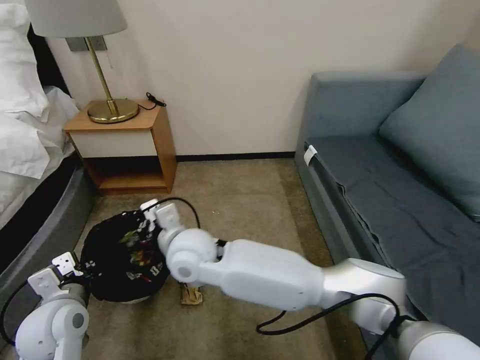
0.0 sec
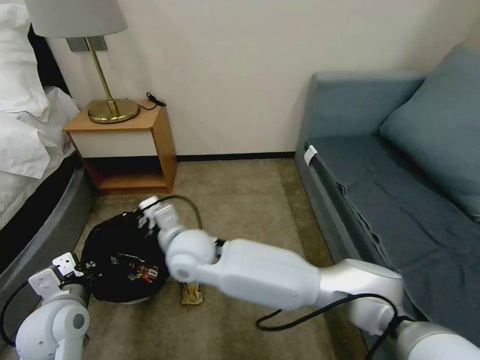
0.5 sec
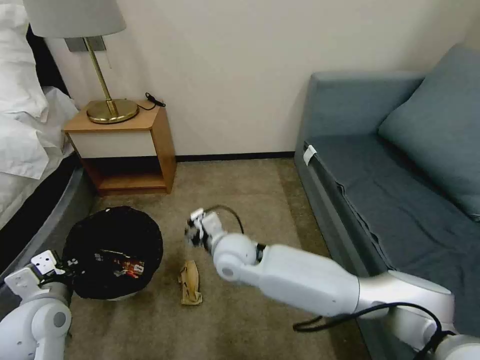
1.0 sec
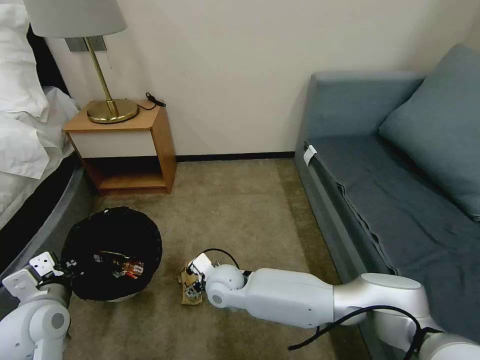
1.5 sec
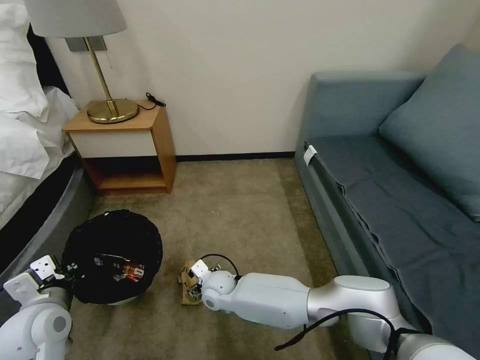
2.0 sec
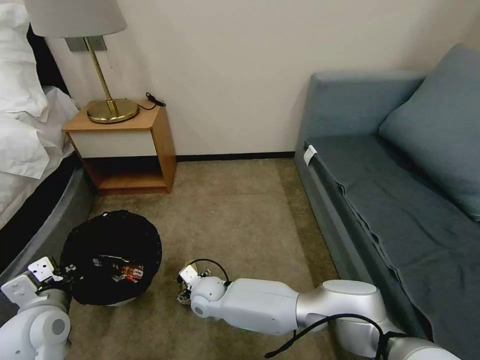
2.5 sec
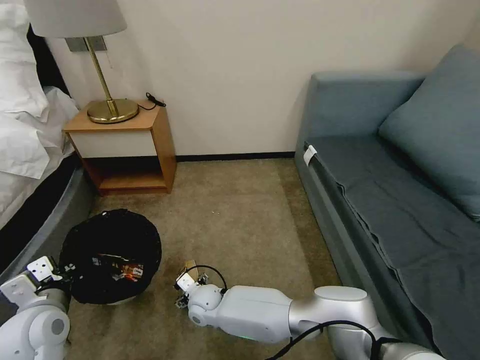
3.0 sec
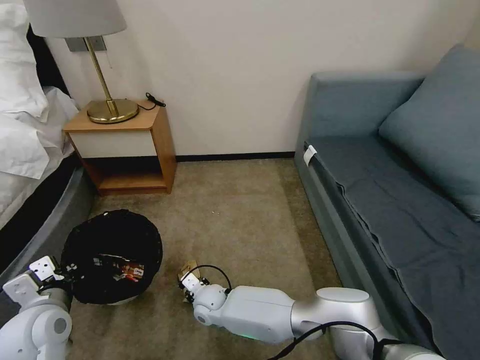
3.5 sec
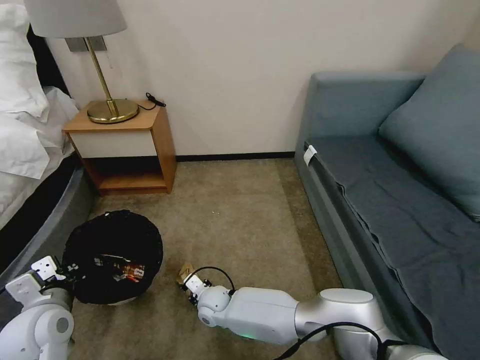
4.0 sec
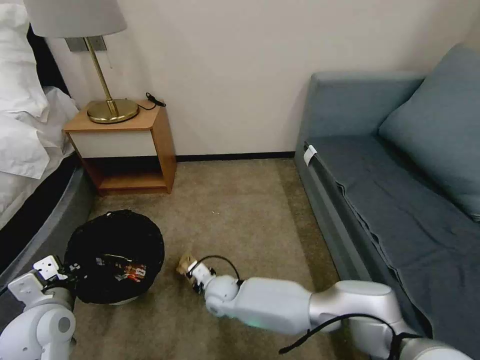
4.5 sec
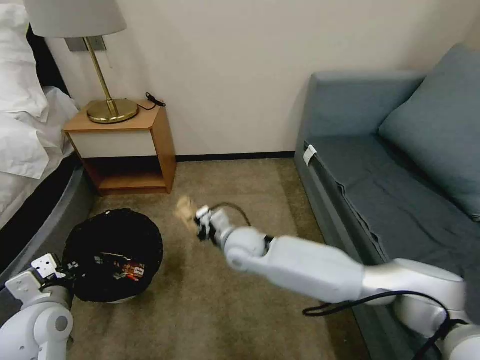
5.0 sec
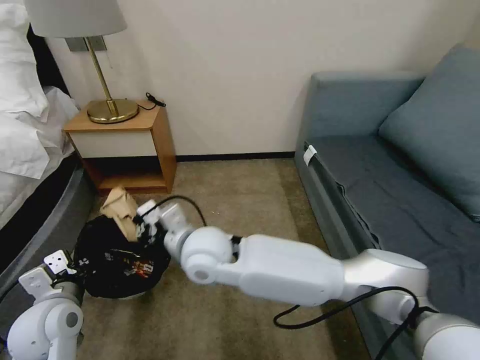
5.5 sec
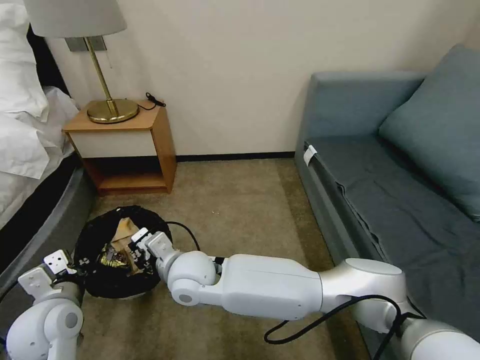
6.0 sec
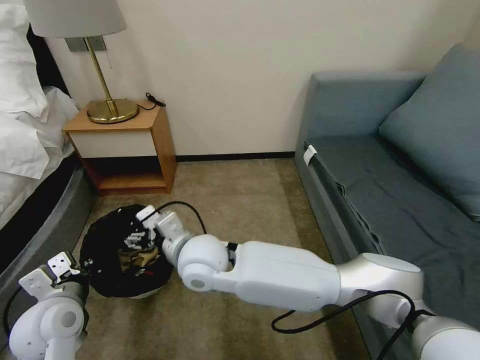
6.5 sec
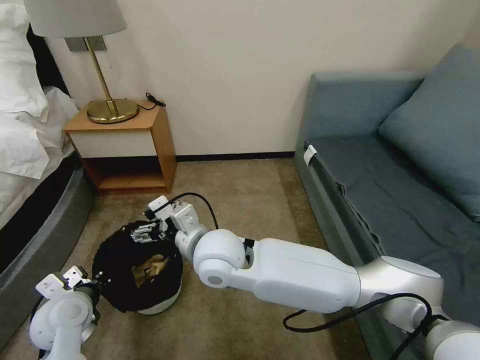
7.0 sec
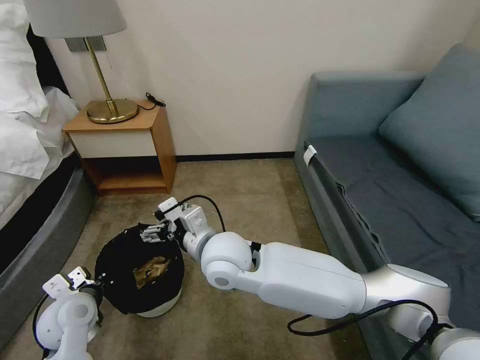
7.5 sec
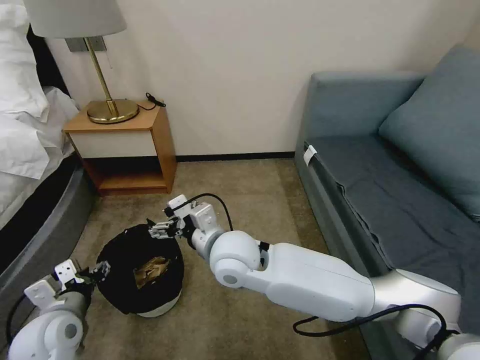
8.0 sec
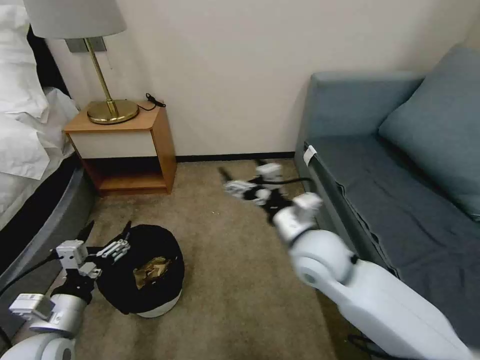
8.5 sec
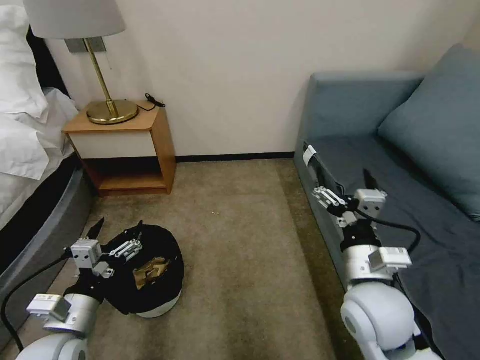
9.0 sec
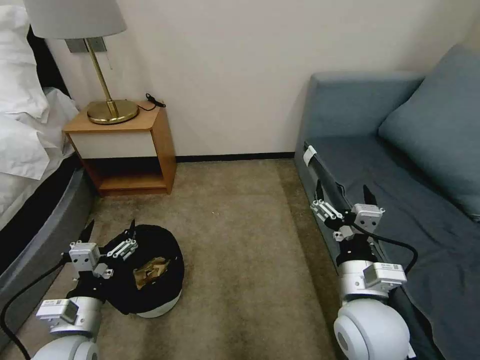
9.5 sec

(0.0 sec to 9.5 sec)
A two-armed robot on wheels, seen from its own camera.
Task of the whole recording: Pick up the trash bin, then pick up the garbage on the floor and place it into the trash bin.
0.0 sec - 2.0 sec: The right gripper shifts approximately 25 cm downward, and opens.
2.0 sec - 4.0 sec: The right gripper ends up roughly 5 cm from where it was, and closes its fingers.
4.0 sec - 5.5 sec: The right gripper is displaced upward by some 30 cm.
5.5 sec - 7.5 sec: The left gripper is displaced downward by roughly 5 cm. Meanwhile the right gripper goes downward and returns, about 10 cm each way, and opens up.
7.5 sec - 9.5 sec: The left gripper is displaced backward and to the right by about 10 cm, and opens up. Meanwhile the right gripper goes roughly 25 cm to the right and backward.

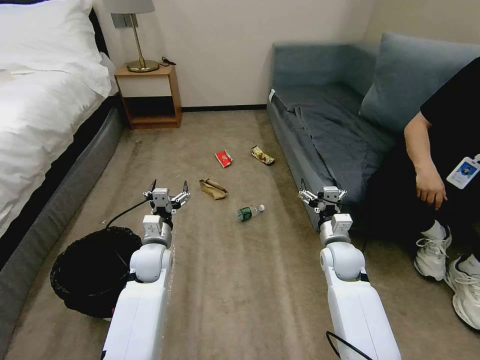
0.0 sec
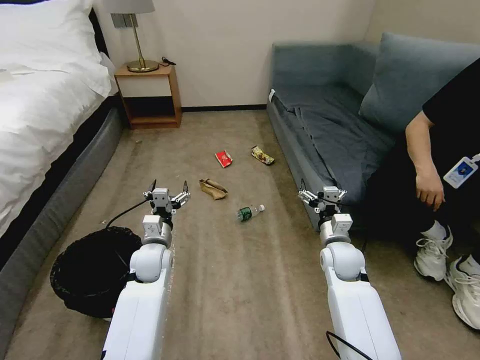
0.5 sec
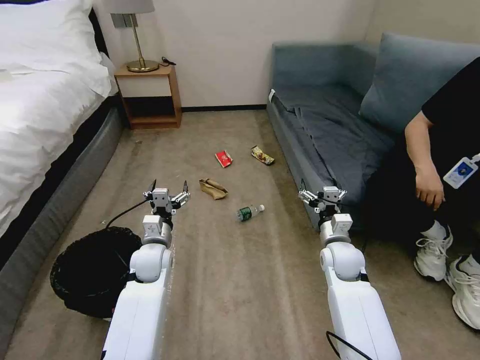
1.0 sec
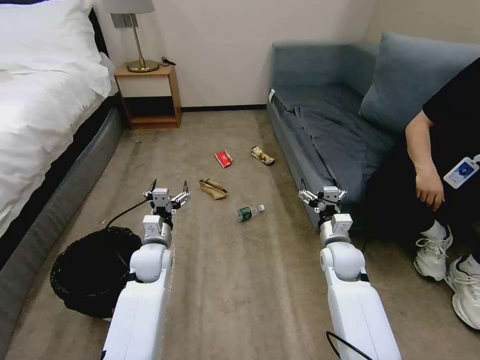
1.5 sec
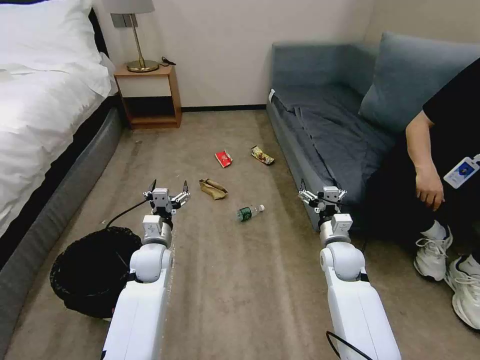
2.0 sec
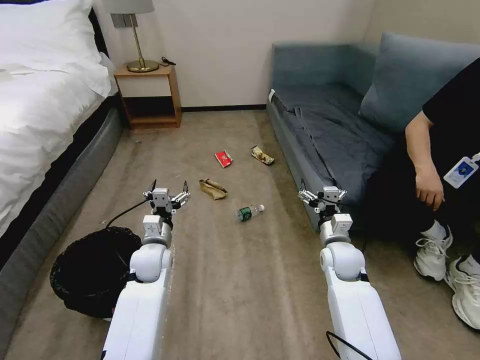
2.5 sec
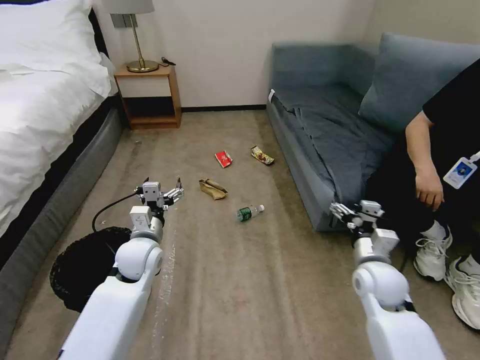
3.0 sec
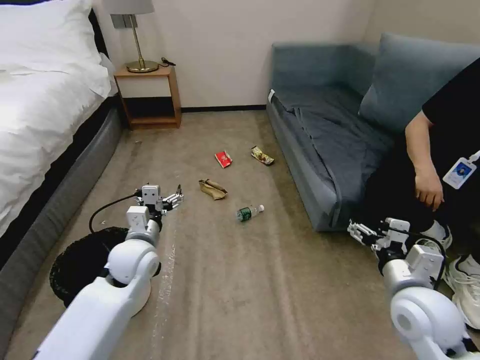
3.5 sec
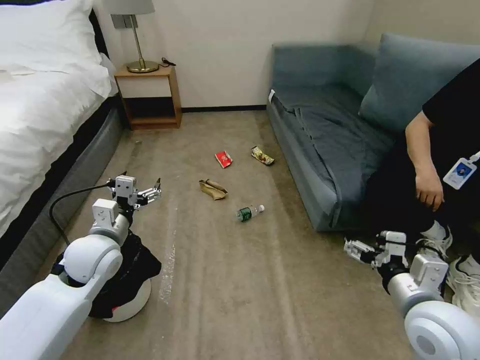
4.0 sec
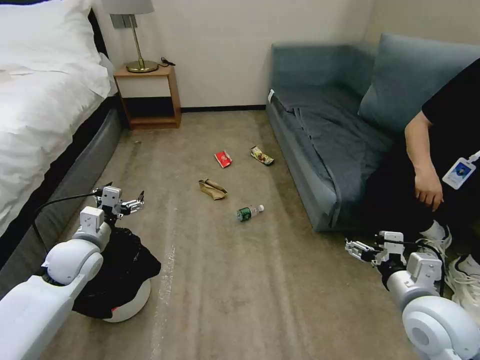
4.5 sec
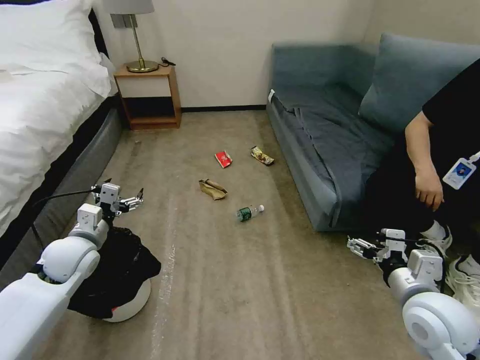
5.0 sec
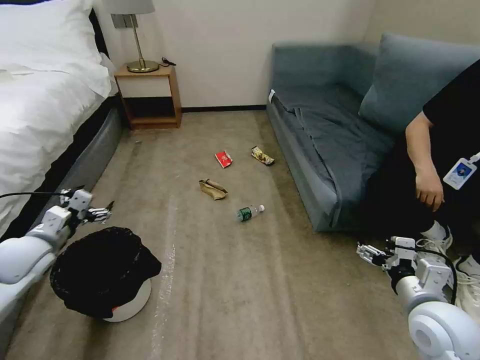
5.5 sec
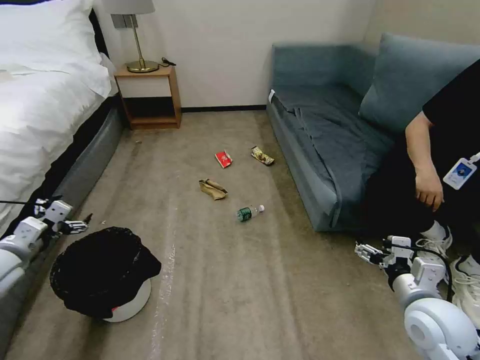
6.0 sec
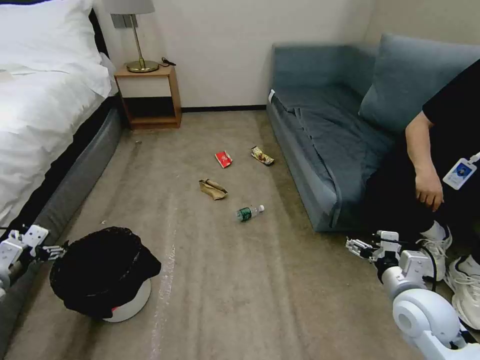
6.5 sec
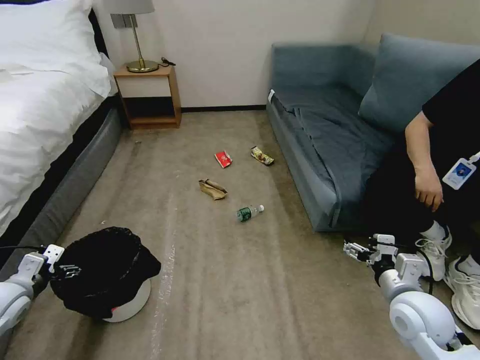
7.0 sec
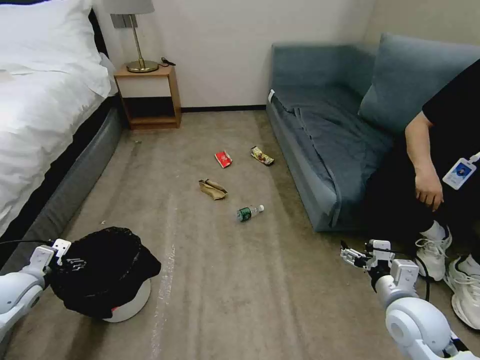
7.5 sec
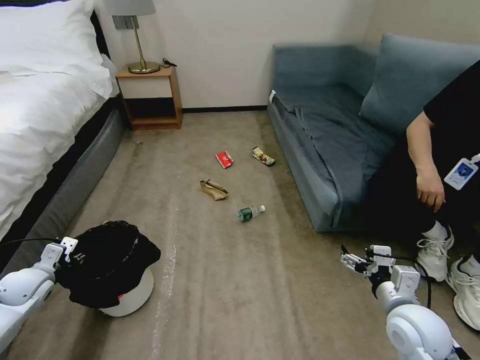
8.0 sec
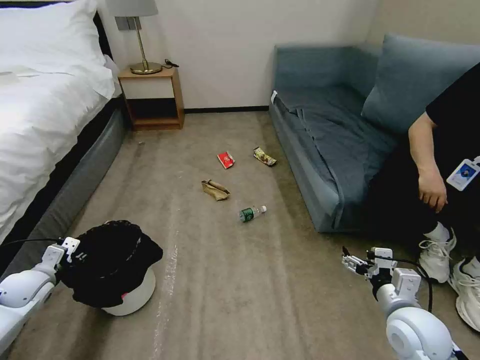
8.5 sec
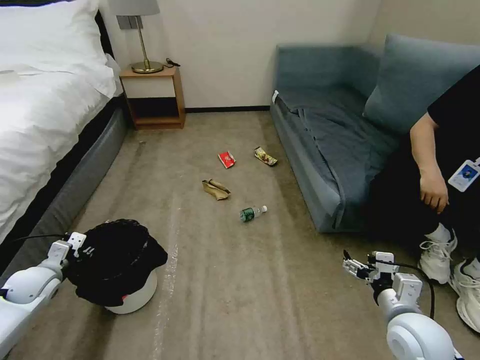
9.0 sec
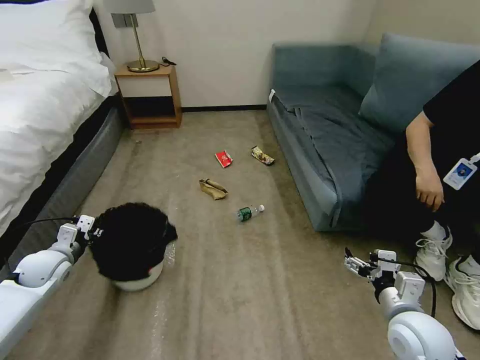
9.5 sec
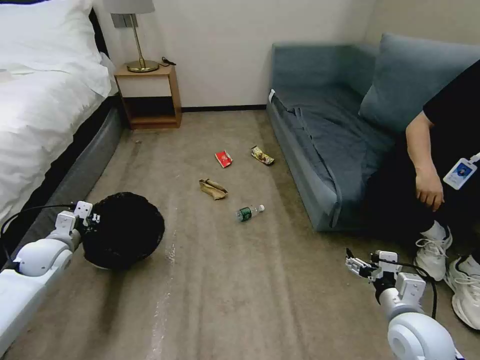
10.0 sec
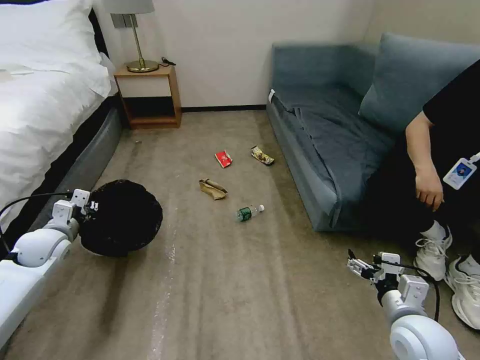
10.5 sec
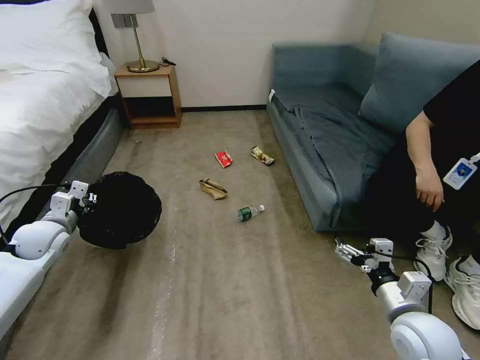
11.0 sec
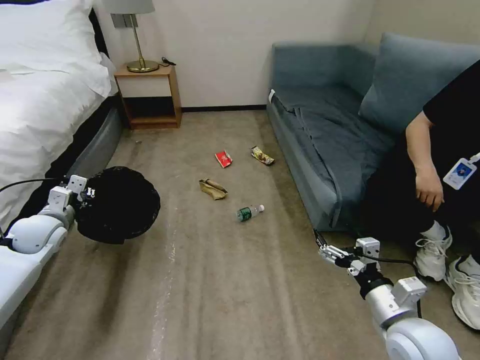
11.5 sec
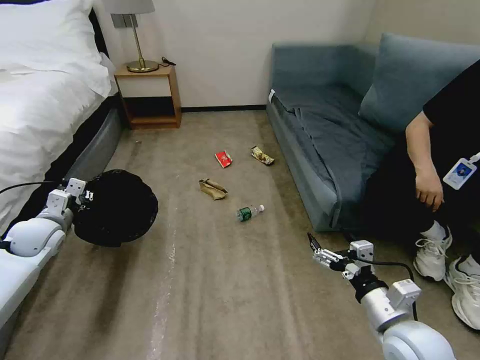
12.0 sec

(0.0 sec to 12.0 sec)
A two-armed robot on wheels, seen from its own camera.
Task of the whole recording: Pick up the trash bin, then pick up the garbage on the floor and place it into the trash bin.
2.0 sec - 4.0 sec: The right gripper moves backward and upward, some 20 cm; the left gripper moves upward and to the left, some 15 cm.
4.0 sec - 6.0 sec: The right gripper moves downward, about 5 cm. The left gripper shifts roughly 20 cm to the left.
6.0 sec - 8.0 sec: The left gripper heads downward, covering roughly 15 cm, and closes up.
8.0 sec - 10.0 sec: The left gripper goes roughly 5 cm forward, and closes up.
10.0 sec - 12.0 sec: The right gripper changes place by about 5 cm. The left gripper ends up roughly 5 cm from where it was.

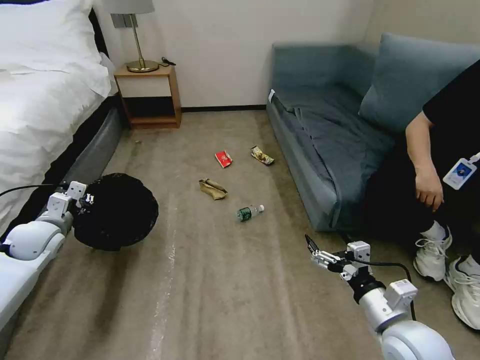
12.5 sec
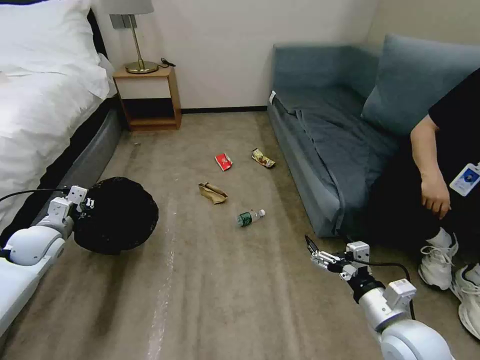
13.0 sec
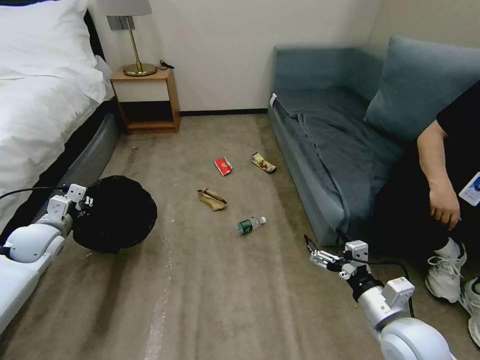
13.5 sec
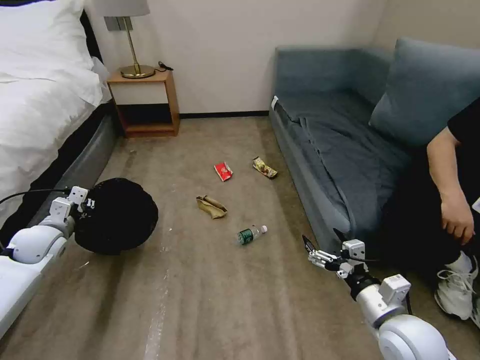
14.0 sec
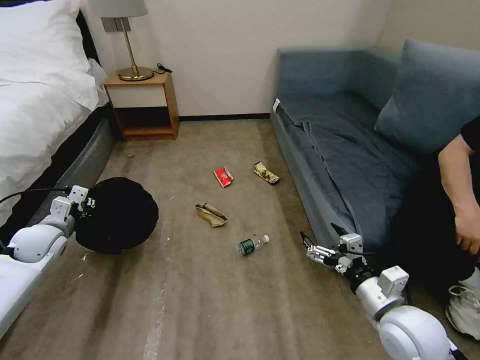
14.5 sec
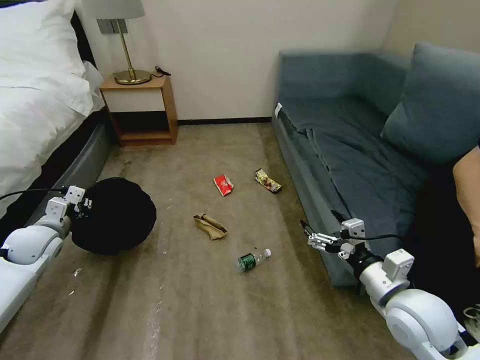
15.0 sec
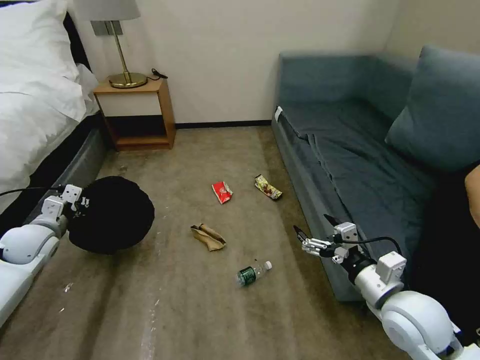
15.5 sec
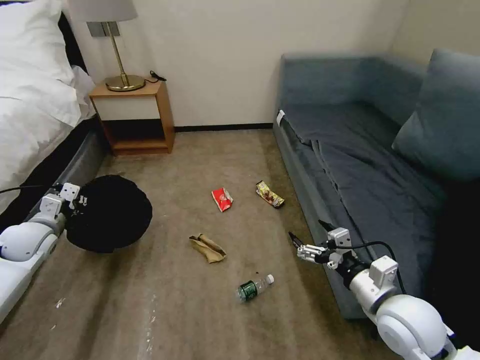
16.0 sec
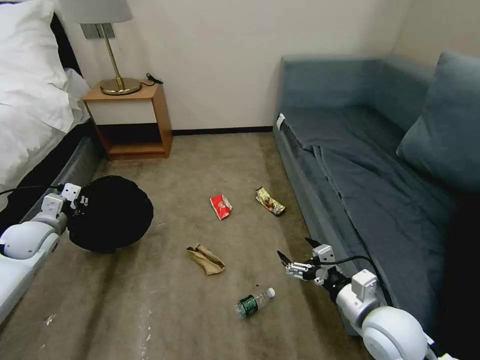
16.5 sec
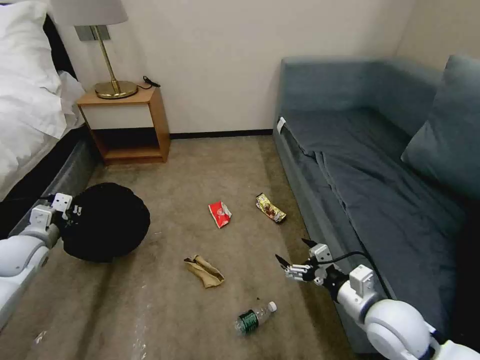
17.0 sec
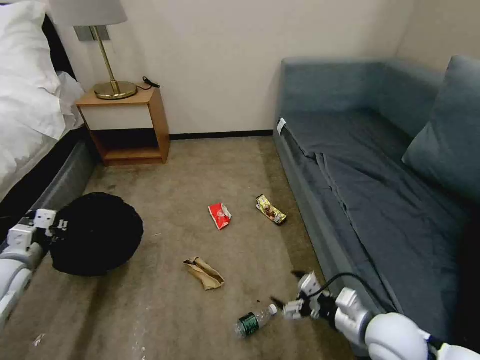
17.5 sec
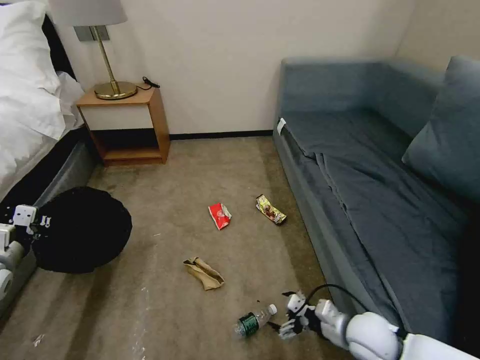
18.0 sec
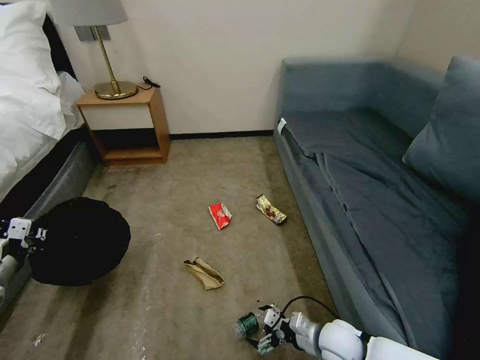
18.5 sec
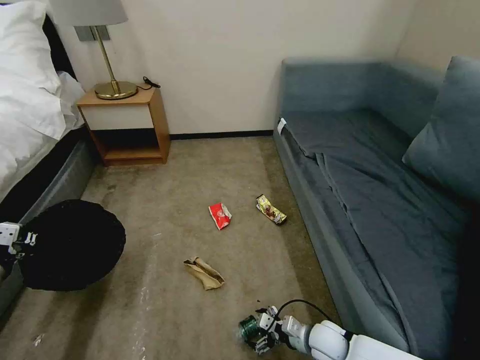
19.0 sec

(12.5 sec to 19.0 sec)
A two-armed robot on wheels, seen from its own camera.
Task of the whole recording: Pick up the trash bin, then pick up the garbage on the floor and place it into the trash bin.
17.0 sec - 19.0 sec: The left gripper goes approximately 10 cm backward, while the right gripper moves downward, roughly 20 cm.
